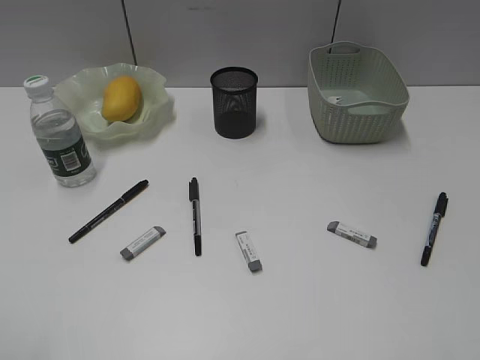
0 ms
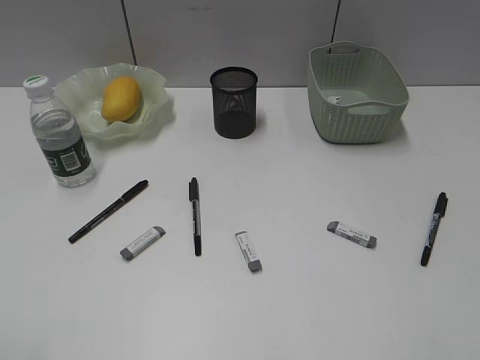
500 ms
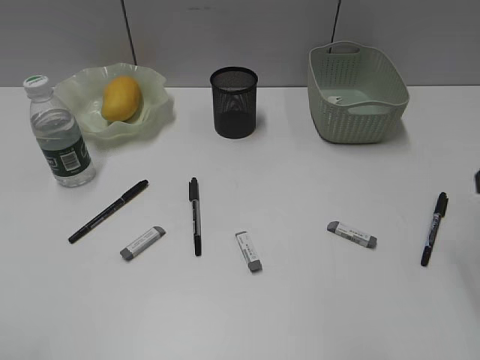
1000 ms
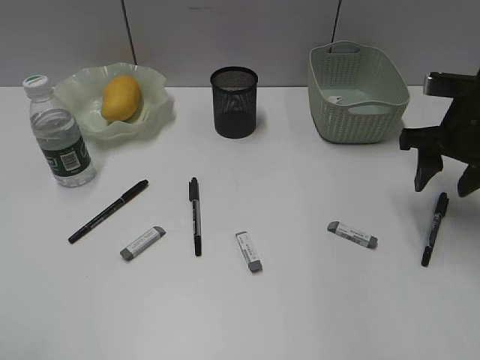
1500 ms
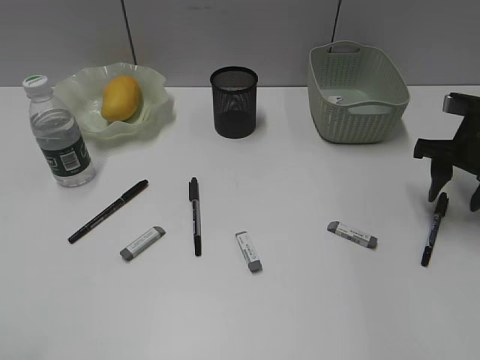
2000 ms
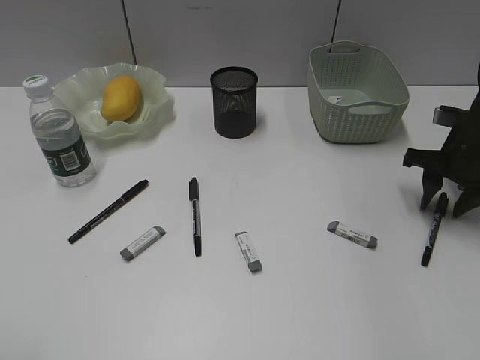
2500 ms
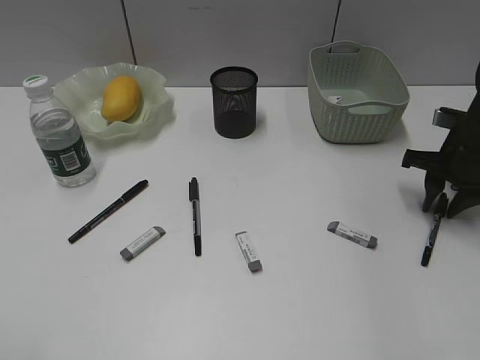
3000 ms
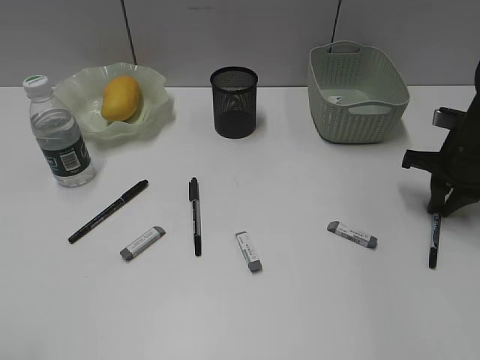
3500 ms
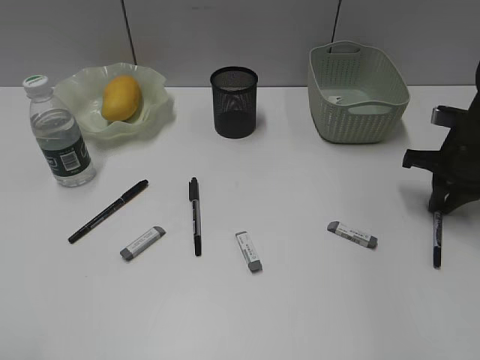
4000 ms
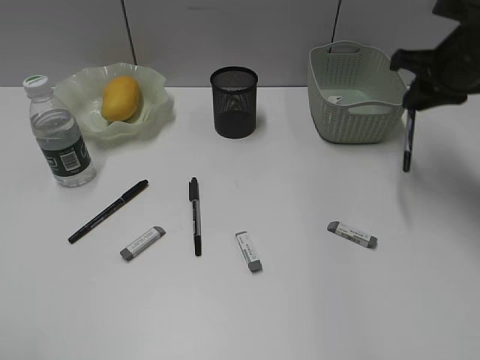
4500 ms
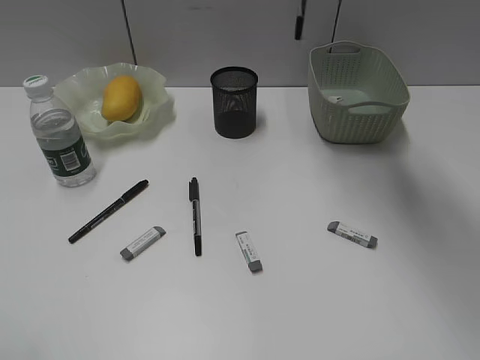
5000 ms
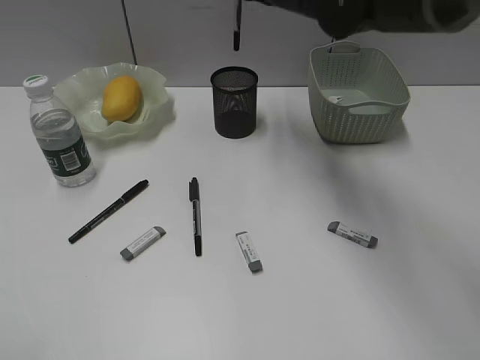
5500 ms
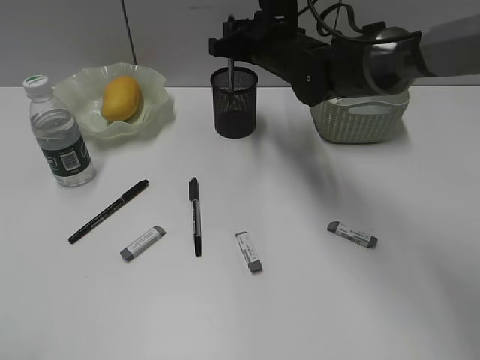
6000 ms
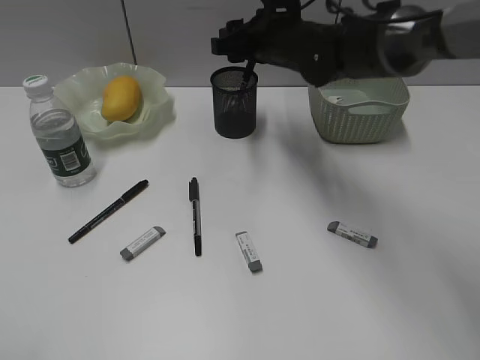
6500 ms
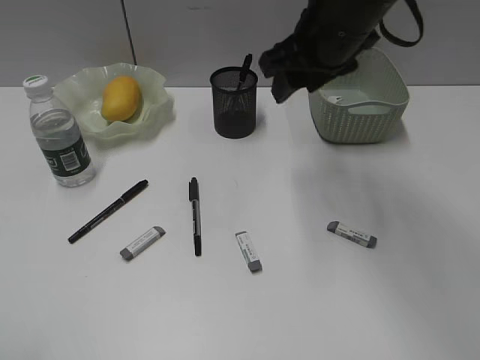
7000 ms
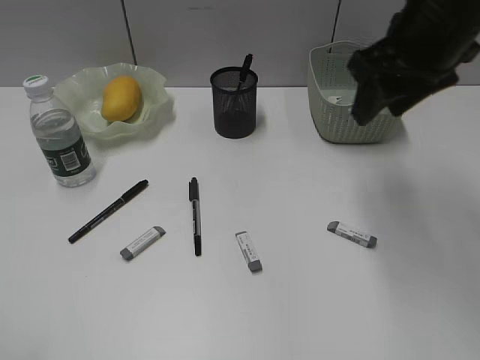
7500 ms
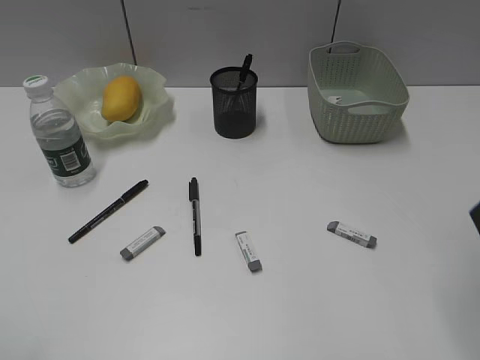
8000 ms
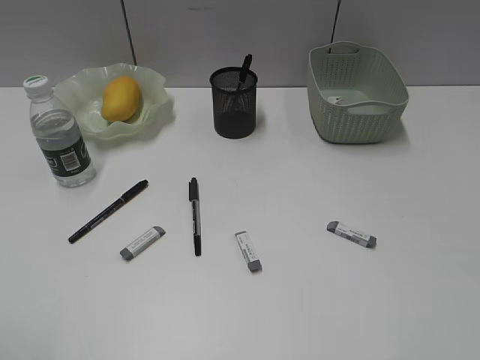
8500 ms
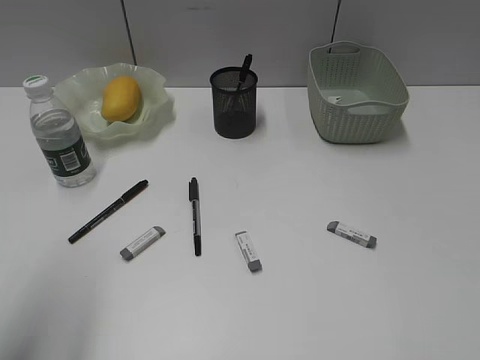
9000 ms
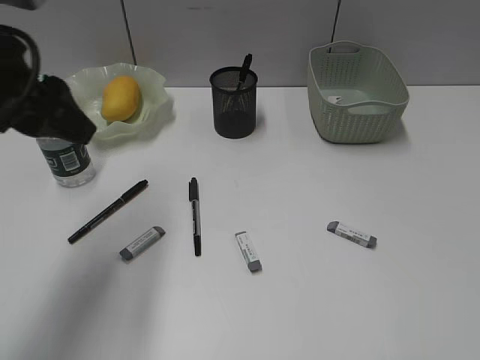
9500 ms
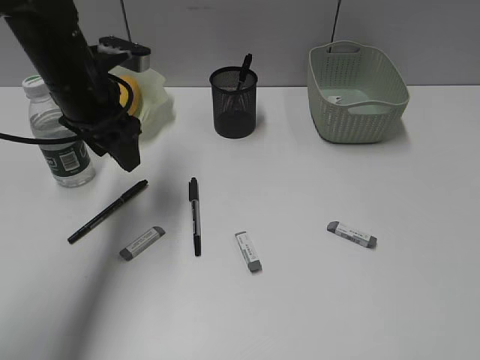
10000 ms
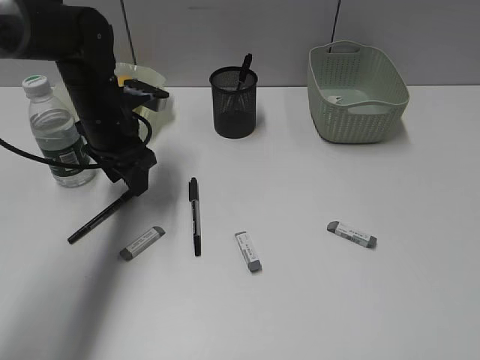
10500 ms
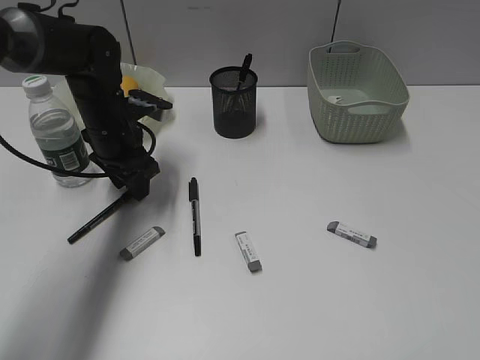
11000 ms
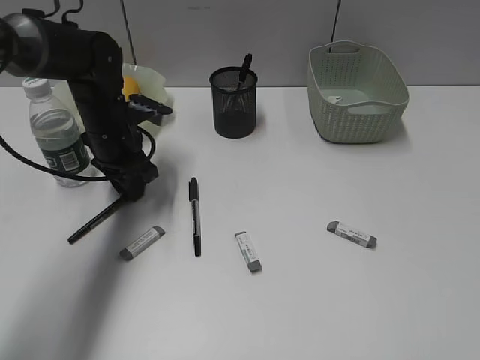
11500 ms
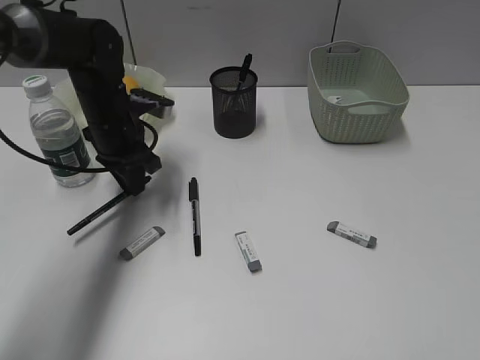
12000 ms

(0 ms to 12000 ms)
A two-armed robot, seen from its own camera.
Step, 0 ms - 3500 ms: Grasp the black pen with right gripper.
Step, 4000 ms - 6500 ms: Place the black pen in pen holder with right gripper.
Step, 7000 ms - 11500 ms: Grasp the black pen with left gripper.
0 ms - 2000 ms: The right gripper shifts roughly 35 cm forward and downward.
2000 ms - 4000 ms: The right gripper closes its fingers.
4000 ms - 6000 ms: The right gripper shifts approximately 25 cm to the left.
6000 ms - 8000 ms: The right gripper shifts roughly 35 cm backward, to the right and upward, and opens.
8000 ms - 10000 ms: The left gripper shifts roughly 35 cm forward, while the right gripper is displaced backward by roughly 15 cm.
10000 ms - 12000 ms: The left gripper heads downward, covering roughly 10 cm, and closes its fingers.

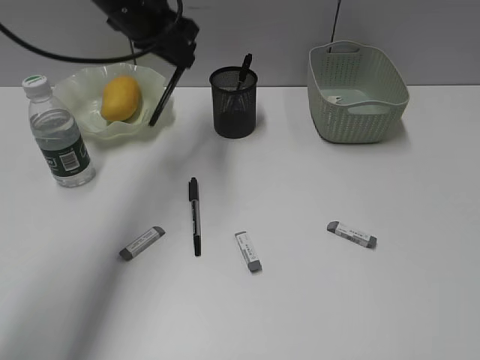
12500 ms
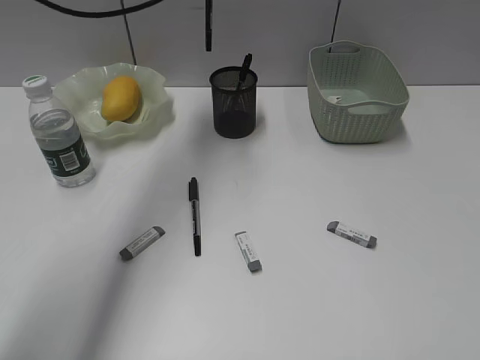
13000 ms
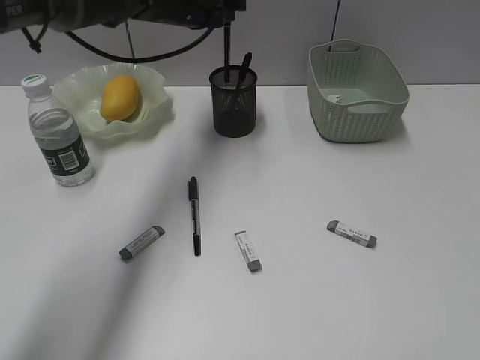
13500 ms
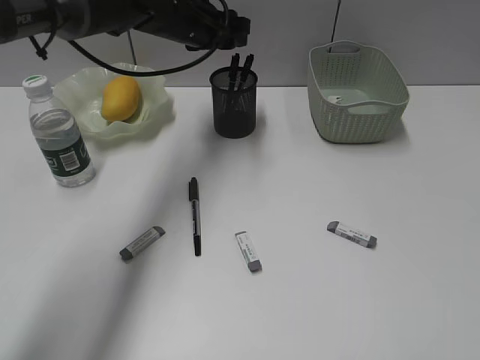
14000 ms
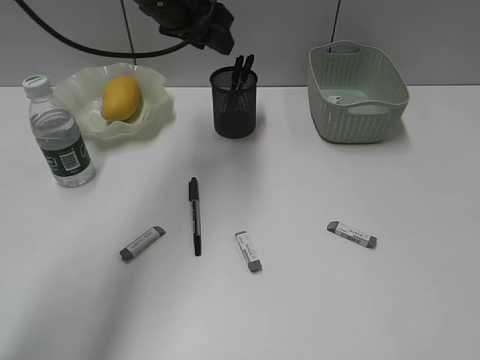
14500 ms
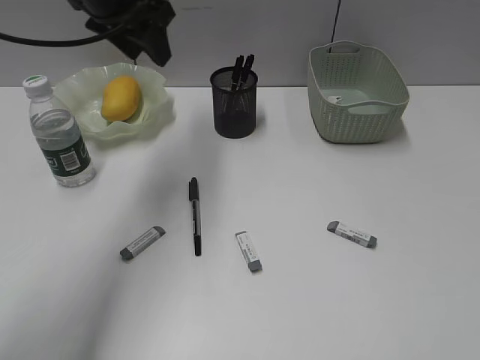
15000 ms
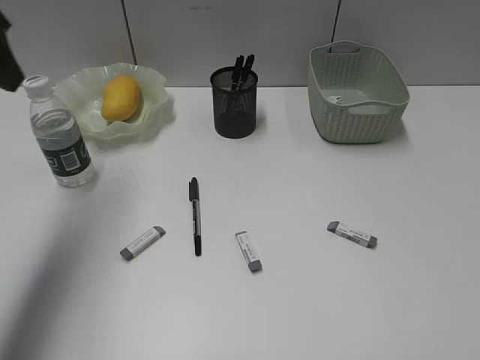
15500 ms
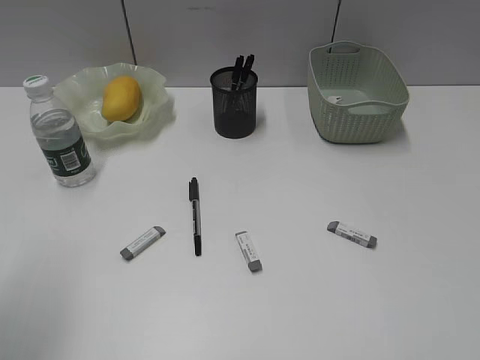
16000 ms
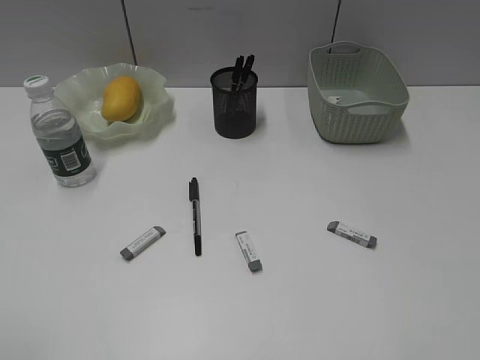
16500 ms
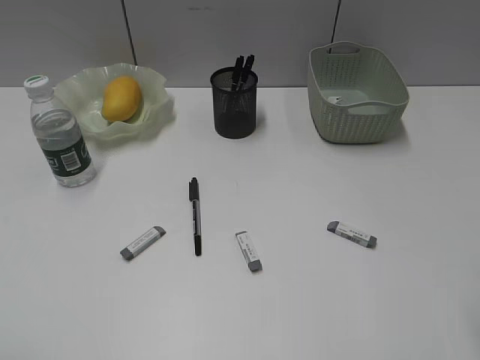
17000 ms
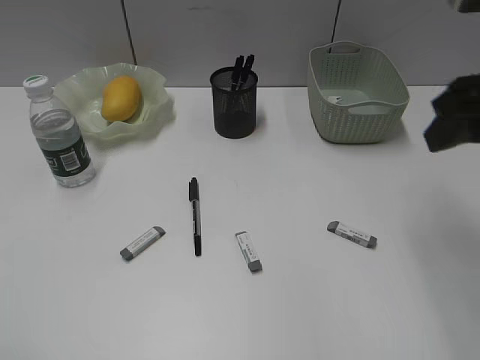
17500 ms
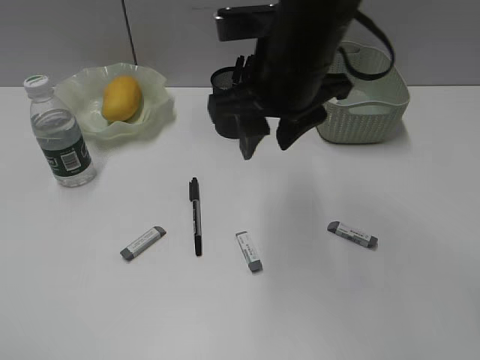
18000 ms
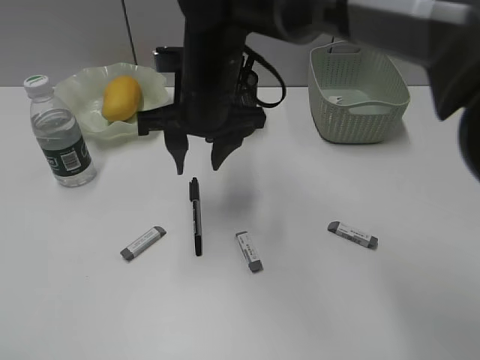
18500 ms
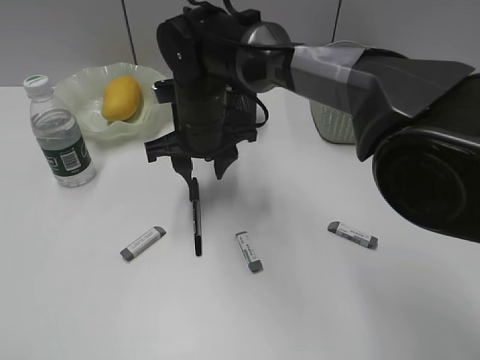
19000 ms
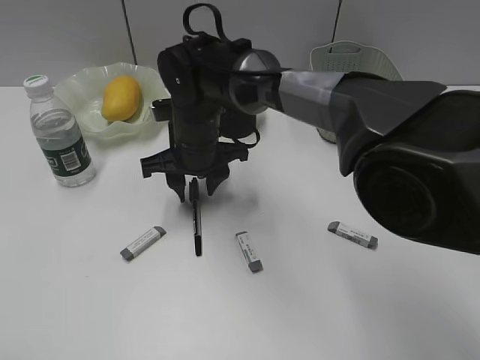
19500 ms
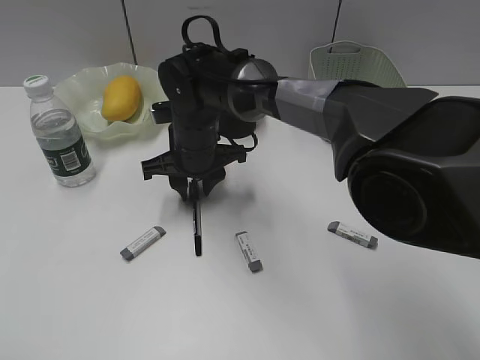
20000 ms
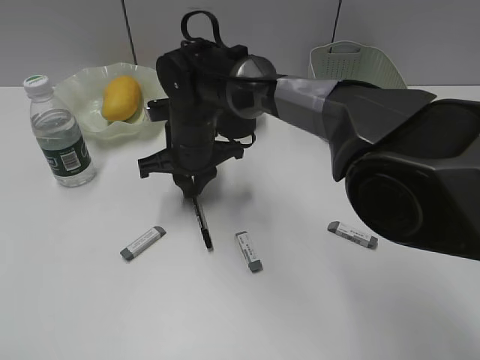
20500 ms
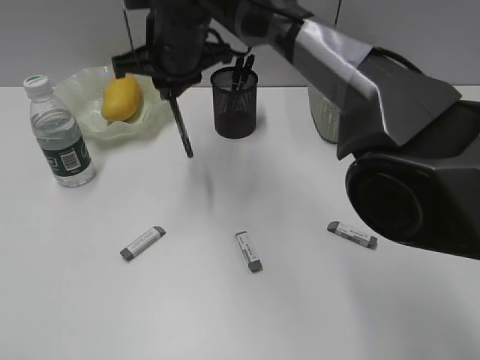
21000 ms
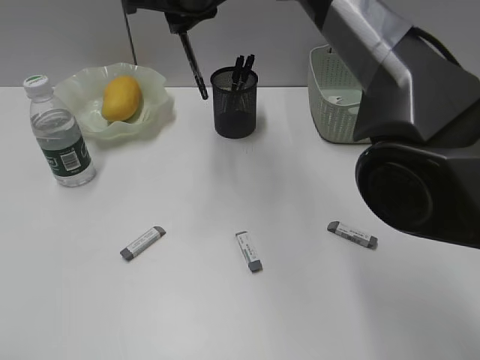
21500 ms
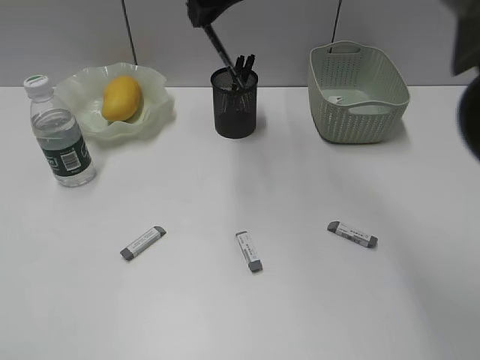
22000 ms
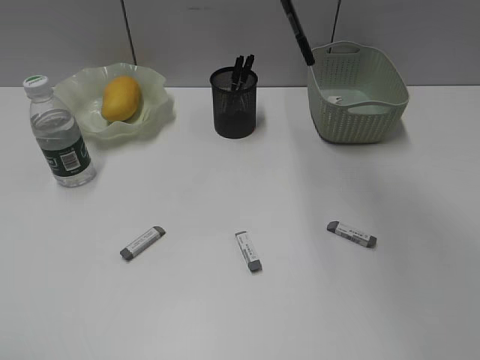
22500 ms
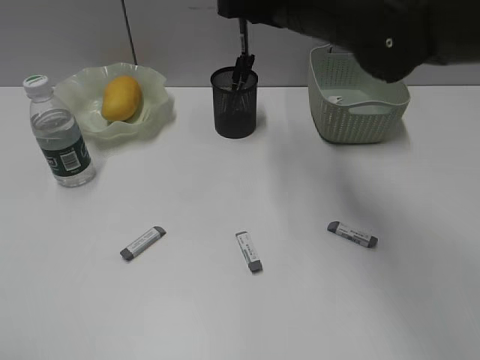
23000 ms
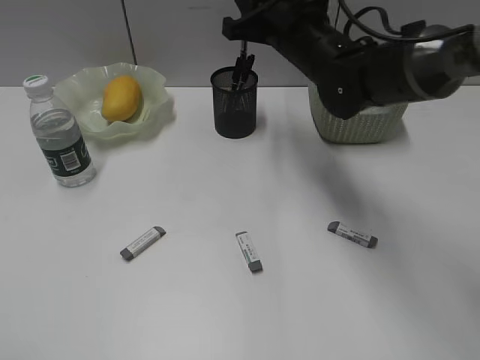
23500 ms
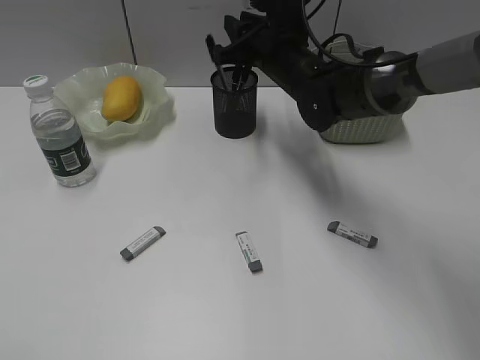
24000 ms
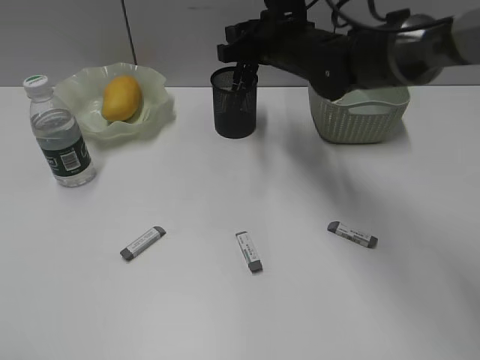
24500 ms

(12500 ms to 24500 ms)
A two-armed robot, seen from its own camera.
Step, 12500 ms - 14000 ms: Place the black pen in pen holder with left gripper.
Step, 14500 ms - 20000 ms: Grasp the black pen with right gripper.
12500 ms - 14500 ms: The left gripper goes up and down, roughly 10 cm each way, reversing 2 times, and opens up.
14500 ms - 16500 ms: The left gripper heads backward and to the left, covering some 50 cm.
16500 ms - 18500 ms: The right gripper is displaced to the left and forward by roughly 40 cm.
18500 ms - 20500 ms: The right gripper shifts about 10 cm downward, and closes its fingers.
20500 ms - 22500 ms: The right gripper is displaced upward and to the right by some 30 cm.
22500 ms - 24500 ms: The right gripper is displaced downward and forward by approximately 20 cm, and opens up.

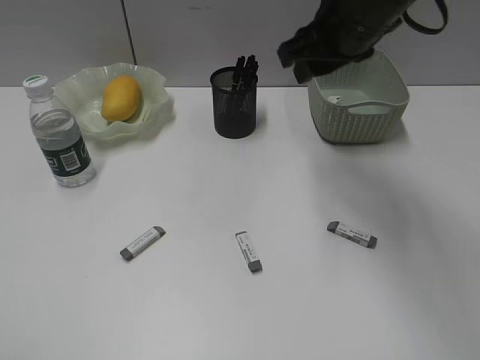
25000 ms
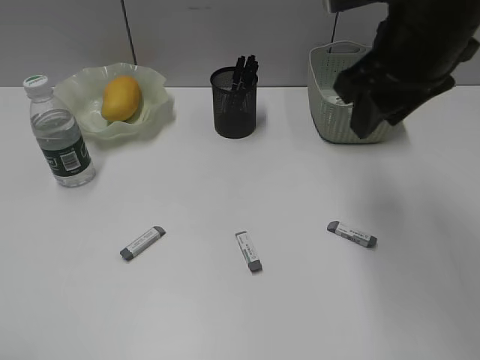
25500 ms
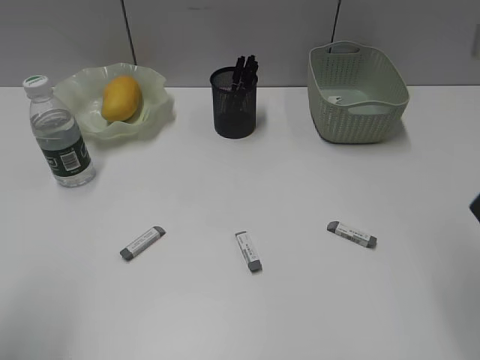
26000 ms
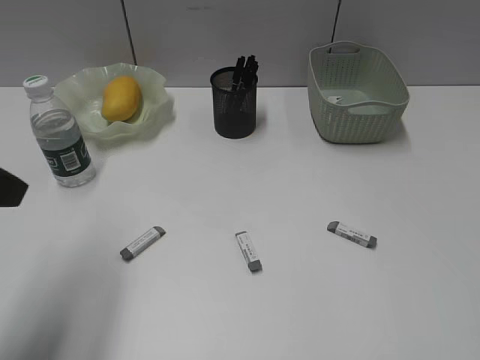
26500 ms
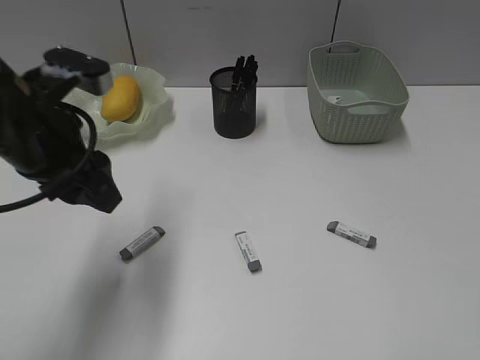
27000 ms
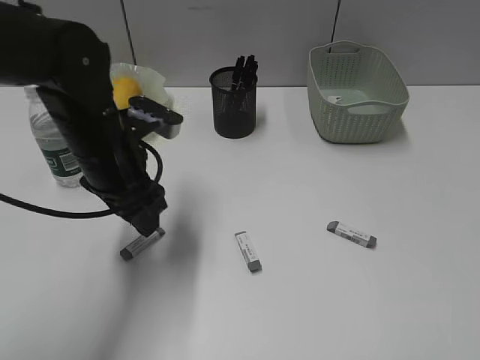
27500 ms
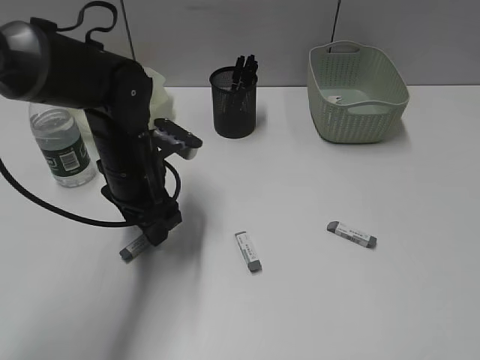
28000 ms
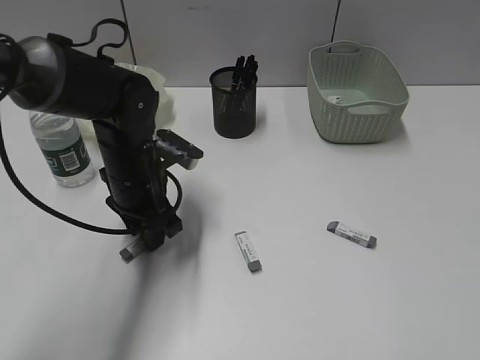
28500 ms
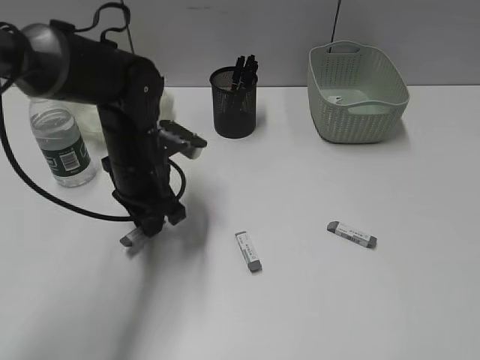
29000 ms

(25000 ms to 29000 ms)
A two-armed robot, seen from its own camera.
Step, 25000 ms - 28500 ms: Grasp the eraser with left gripper.
25000 ms - 27000 ms: The left gripper shifts roughly 30 cm forward and to the right. The right gripper is displaced backward and to the right by roughly 40 cm.
27000 ms - 29000 ms: The left gripper moves downward, forward and to the right, about 15 cm, and closes.
